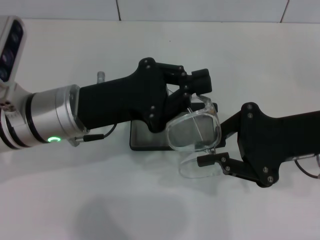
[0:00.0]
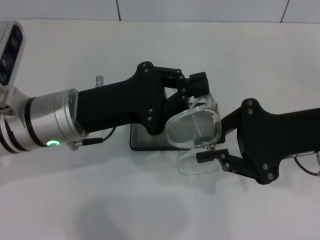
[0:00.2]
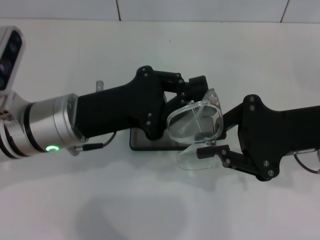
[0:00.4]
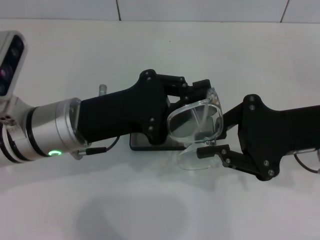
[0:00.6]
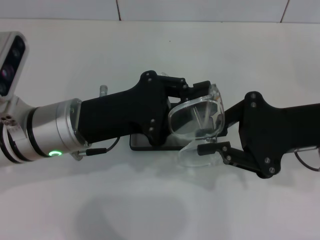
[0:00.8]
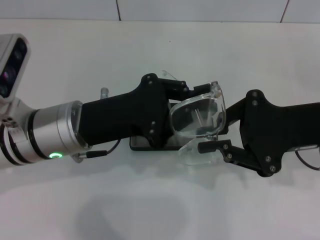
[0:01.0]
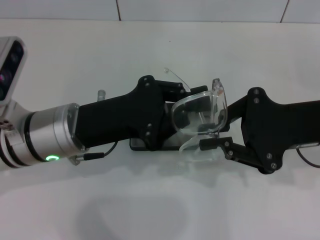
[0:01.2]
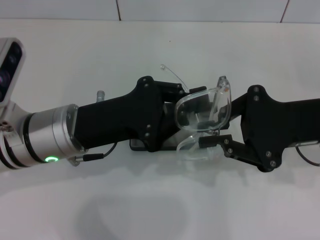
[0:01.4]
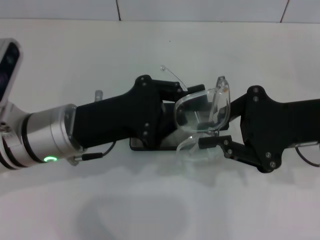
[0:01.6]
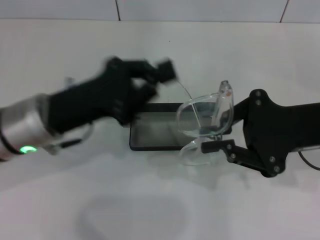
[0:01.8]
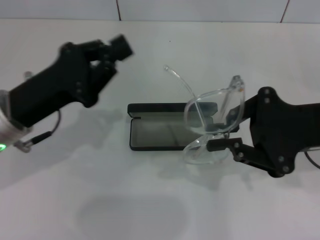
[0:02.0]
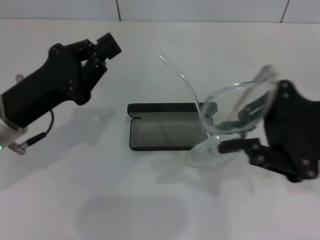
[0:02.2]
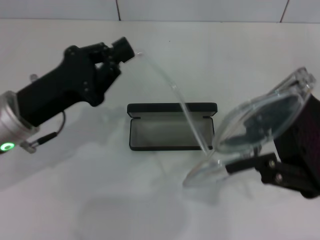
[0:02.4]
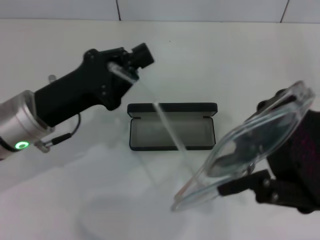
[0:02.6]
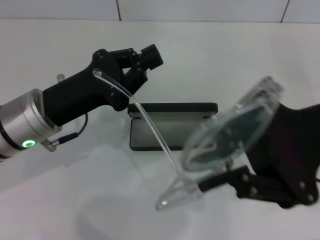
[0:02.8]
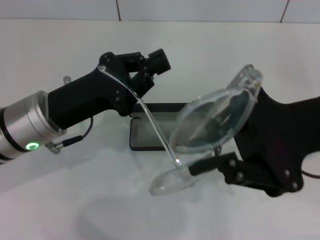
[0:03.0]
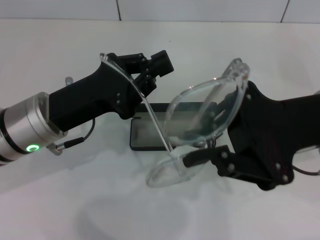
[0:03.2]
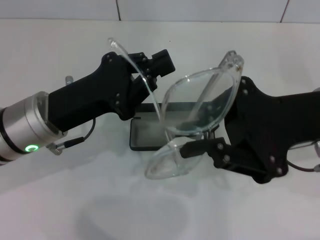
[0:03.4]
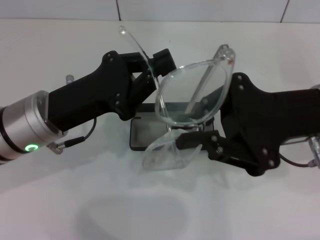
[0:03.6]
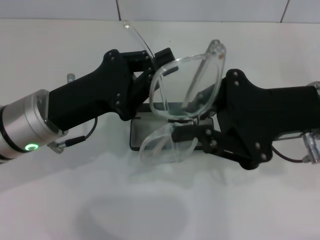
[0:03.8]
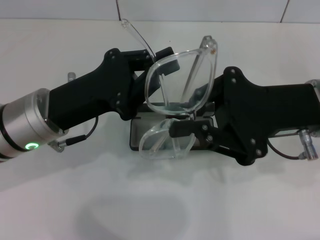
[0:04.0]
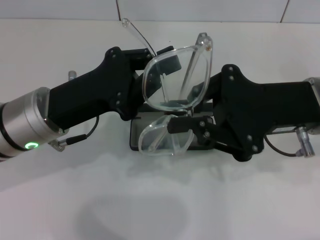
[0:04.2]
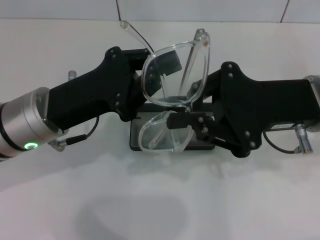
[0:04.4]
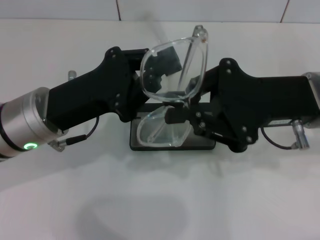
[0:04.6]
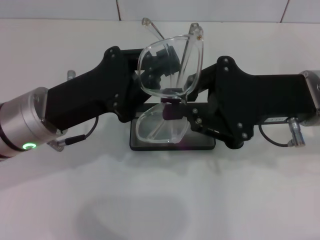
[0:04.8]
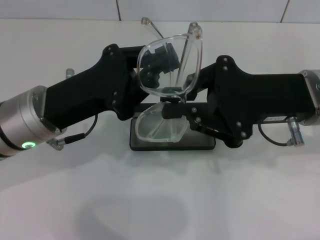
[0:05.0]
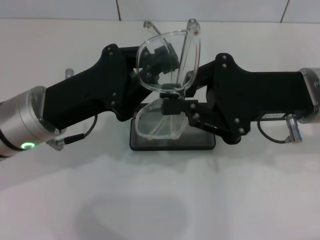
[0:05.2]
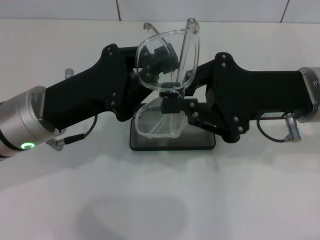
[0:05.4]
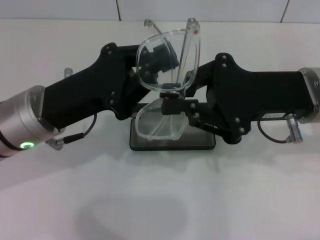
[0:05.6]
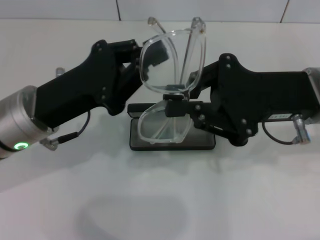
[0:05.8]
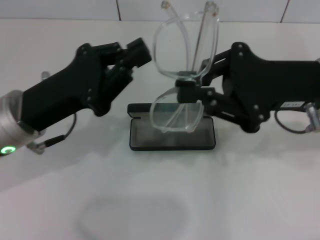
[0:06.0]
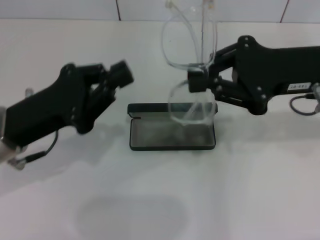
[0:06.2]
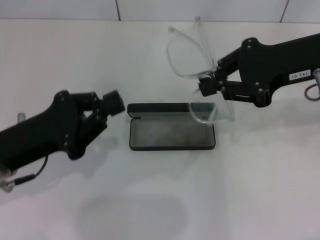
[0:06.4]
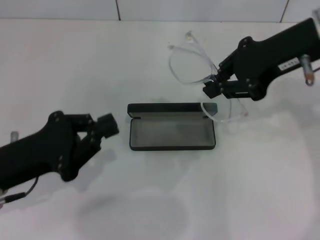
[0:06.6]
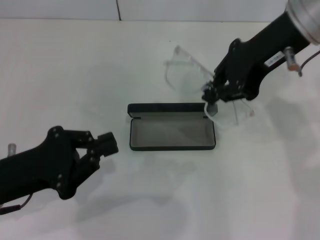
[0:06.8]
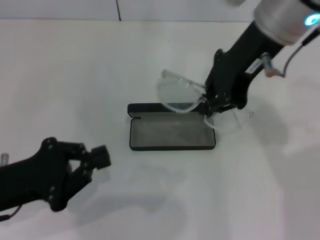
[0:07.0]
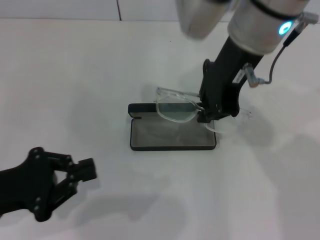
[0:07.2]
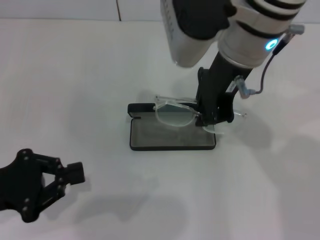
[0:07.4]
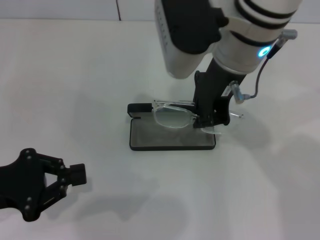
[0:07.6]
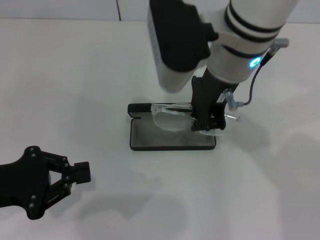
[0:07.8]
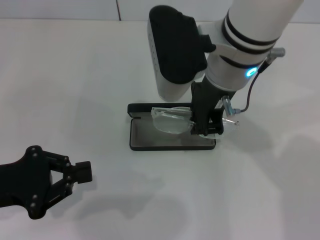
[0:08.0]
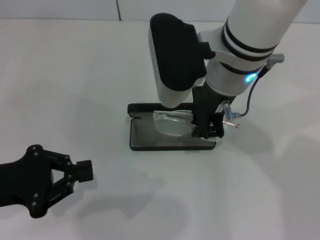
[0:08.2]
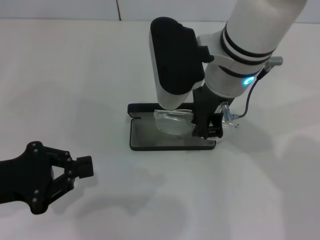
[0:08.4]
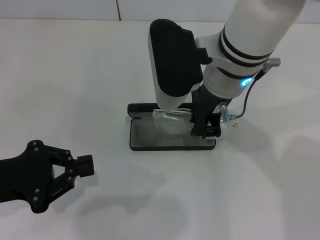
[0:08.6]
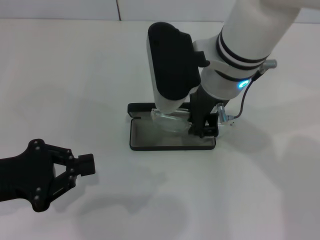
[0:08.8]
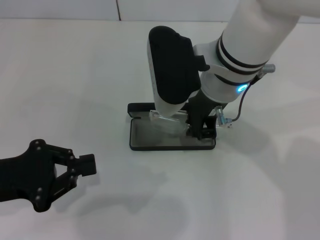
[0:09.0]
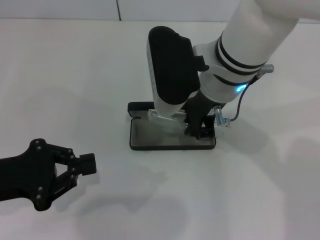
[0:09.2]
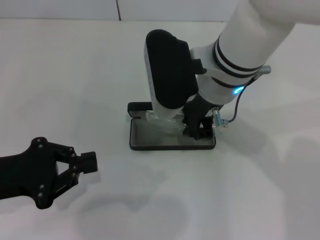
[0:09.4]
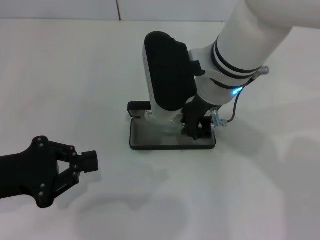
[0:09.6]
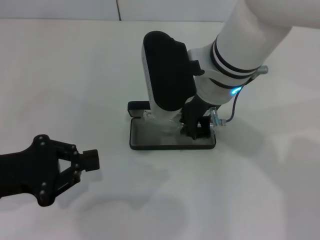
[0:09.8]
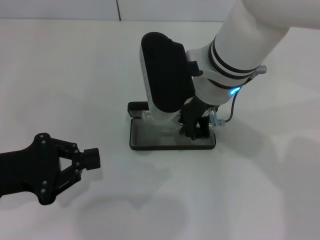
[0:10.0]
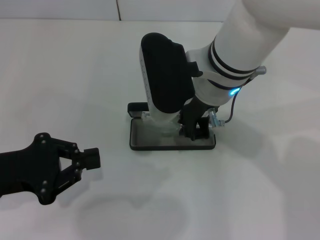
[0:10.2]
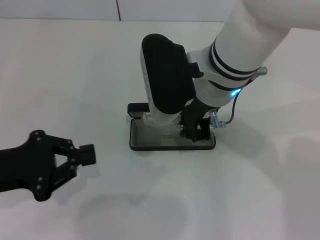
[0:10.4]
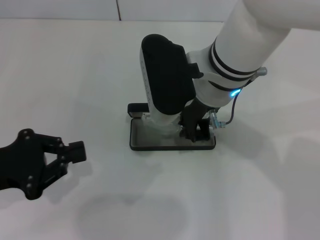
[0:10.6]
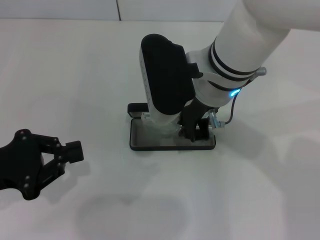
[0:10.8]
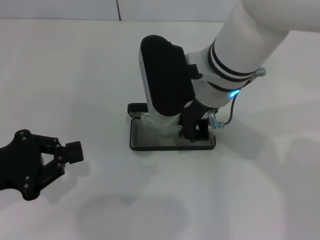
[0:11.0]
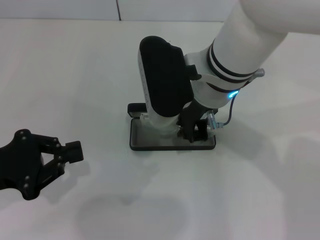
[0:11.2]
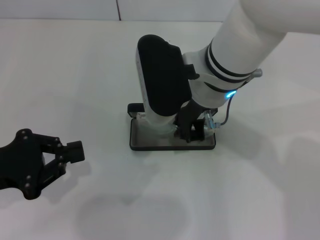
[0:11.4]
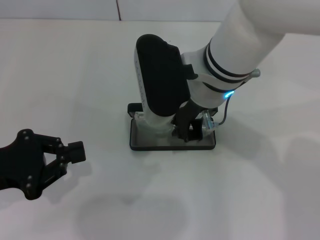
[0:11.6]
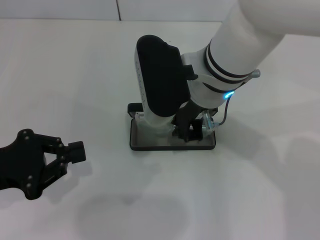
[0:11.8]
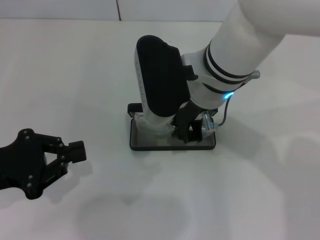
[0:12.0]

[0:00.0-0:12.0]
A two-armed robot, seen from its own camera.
Step, 0:00.0 to 0:05.4: Fold the frame with your left hand.
0:06.0 to 0:07.6: The right gripper heads to the left and upward, covering approximately 15 cm; the left gripper is displaced to the left and backward by roughly 10 cm.
0:07.6 to 0:09.0: The right gripper goes roughly 5 cm downward.
0:09.0 to 0:10.4: Neither gripper changes place.
0:10.4 to 0:12.0: The grippers move only a little.

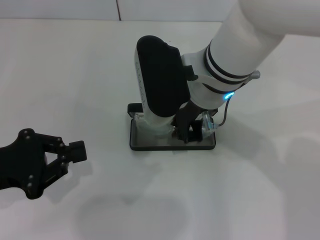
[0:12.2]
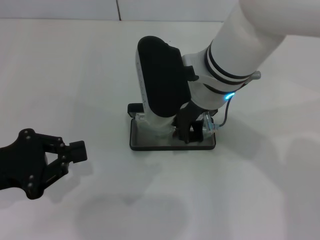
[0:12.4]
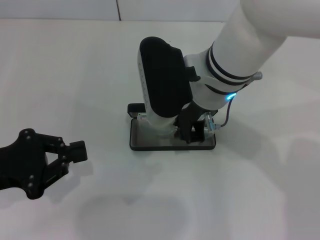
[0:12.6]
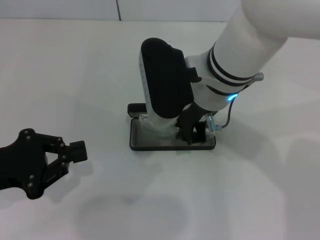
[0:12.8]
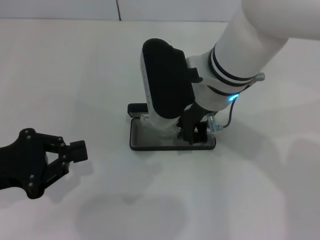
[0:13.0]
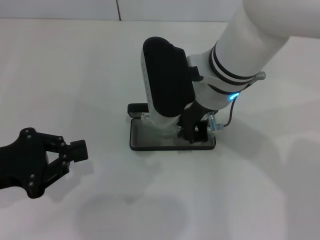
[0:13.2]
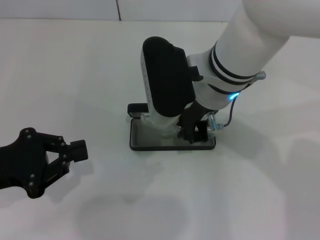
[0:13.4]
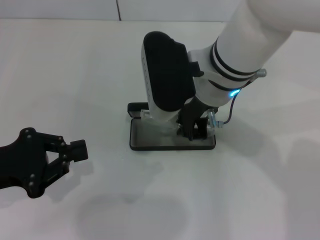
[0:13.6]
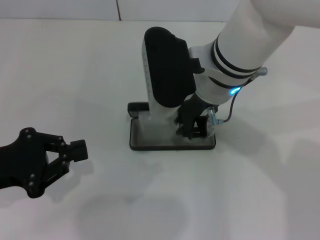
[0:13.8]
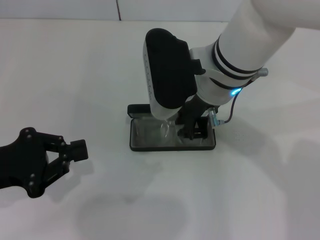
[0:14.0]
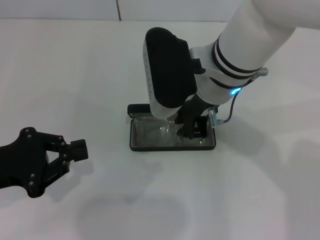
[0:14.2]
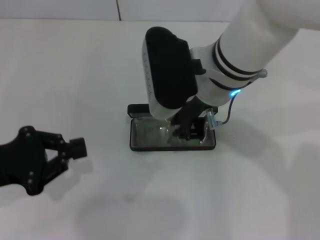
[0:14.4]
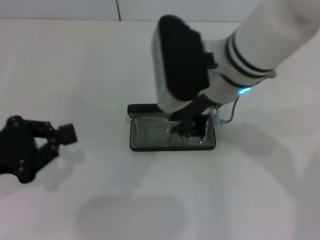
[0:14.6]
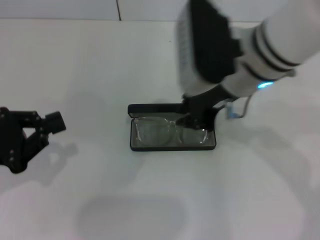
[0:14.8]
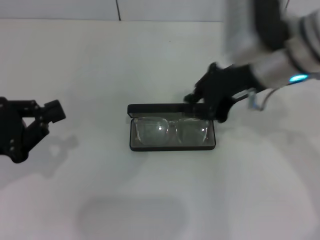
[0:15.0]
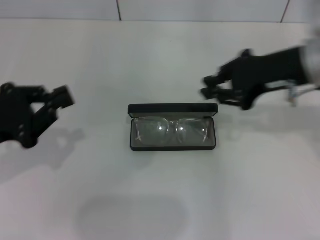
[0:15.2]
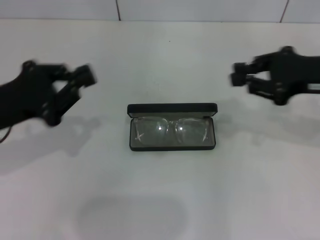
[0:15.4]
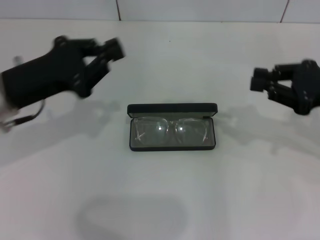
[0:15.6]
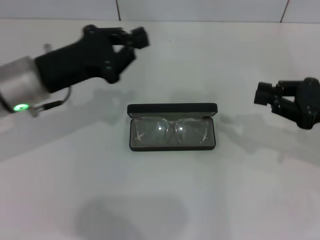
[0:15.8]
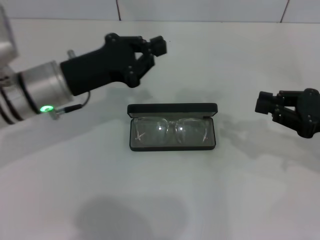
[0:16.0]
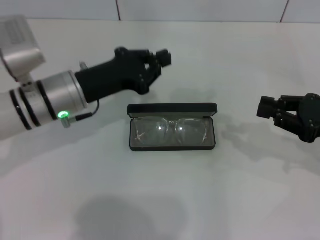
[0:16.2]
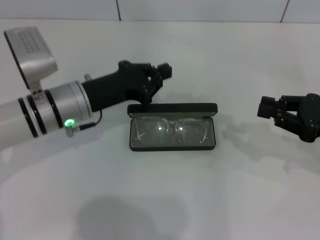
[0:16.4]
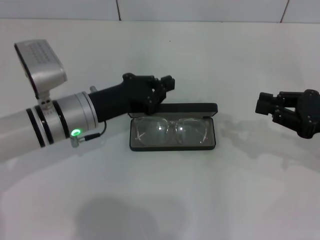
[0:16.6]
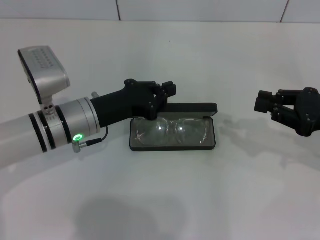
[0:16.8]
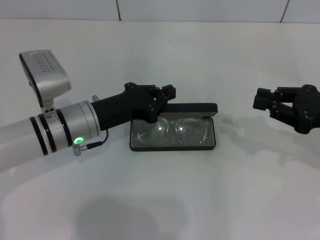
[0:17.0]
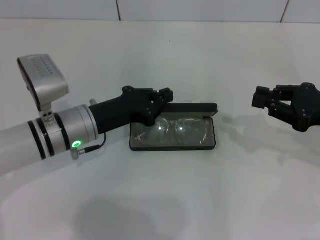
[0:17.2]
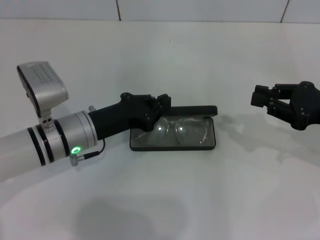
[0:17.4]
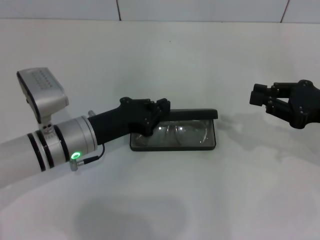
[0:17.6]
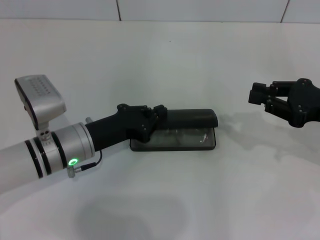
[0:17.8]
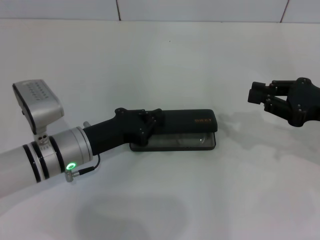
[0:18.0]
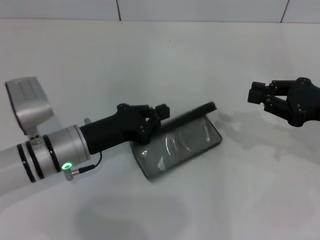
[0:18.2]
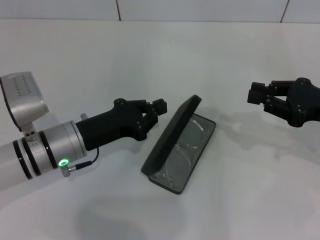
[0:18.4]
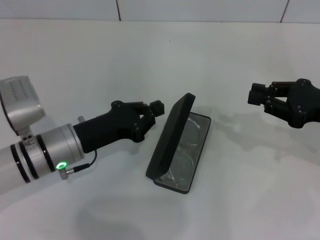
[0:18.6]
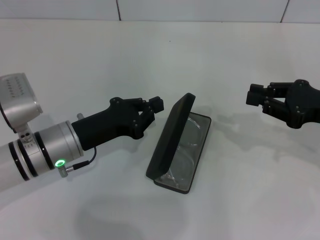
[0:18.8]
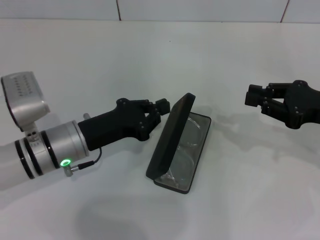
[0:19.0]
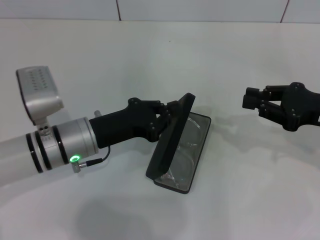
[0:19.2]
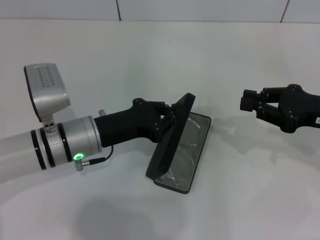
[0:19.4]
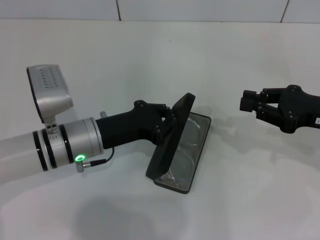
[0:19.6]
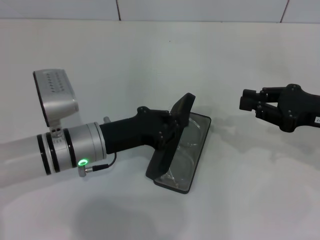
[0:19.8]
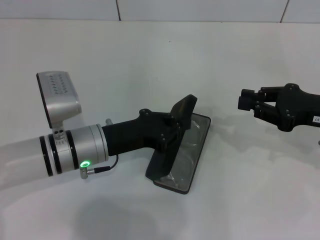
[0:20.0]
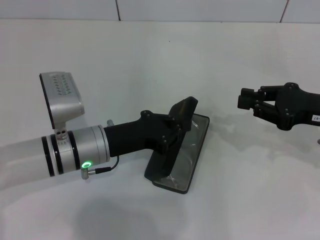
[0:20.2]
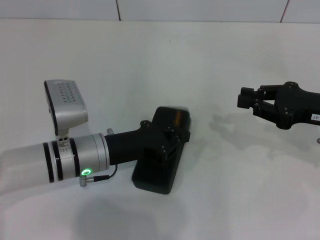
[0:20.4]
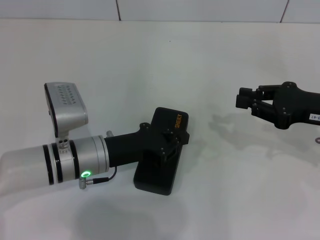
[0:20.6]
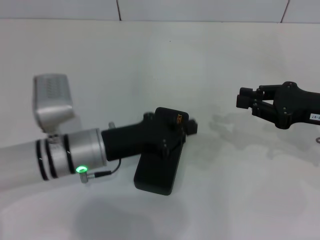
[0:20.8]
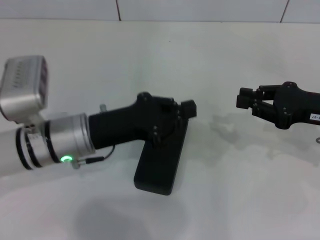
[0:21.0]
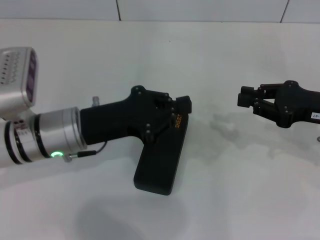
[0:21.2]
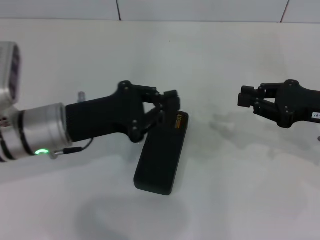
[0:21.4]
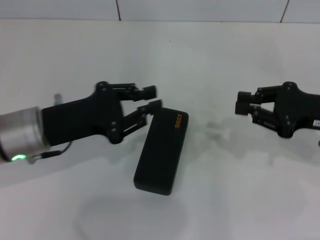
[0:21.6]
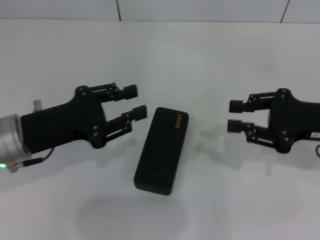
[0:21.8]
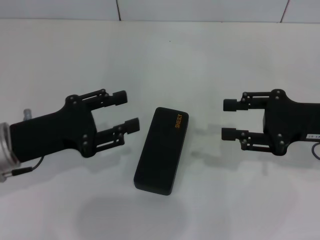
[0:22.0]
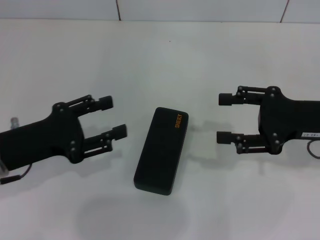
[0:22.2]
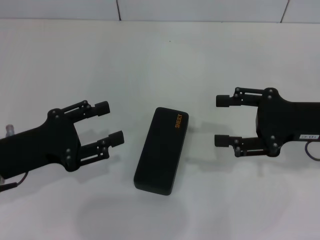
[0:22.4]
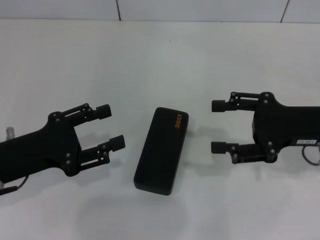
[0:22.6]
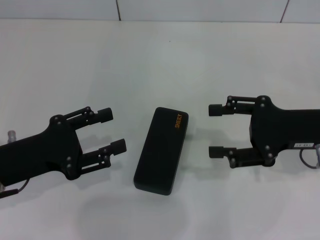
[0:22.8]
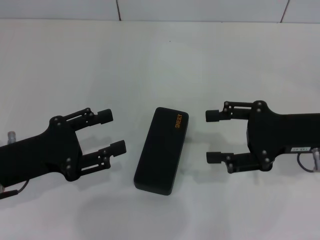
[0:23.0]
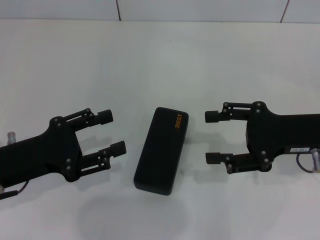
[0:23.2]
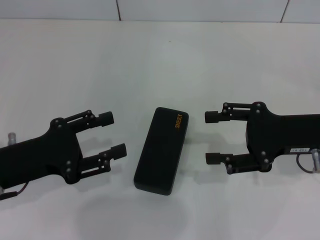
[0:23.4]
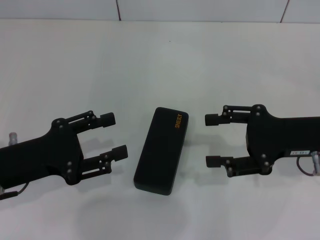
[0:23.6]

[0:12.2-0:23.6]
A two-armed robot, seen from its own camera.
Step, 0:14.2 to 0:20.4: Close the glasses case with your left hand.
0:12.2 to 0:13.6: Both grippers stay about where they are.
0:13.6 to 0:15.0: The right gripper moves to the right, about 10 cm.
0:15.0 to 0:16.4: The right gripper is displaced to the right and downward by roughly 20 cm, while the left gripper is displaced to the right and forward by approximately 20 cm.
0:16.4 to 0:17.8: The left gripper moves about 5 cm.
0:17.8 to 0:20.8: The grippers stay close to where they were, moving slightly.
0:20.8 to 0:22.2: The left gripper moves to the left and upward, some 10 cm, and opens. The right gripper opens its fingers.
0:22.2 to 0:23.6: The right gripper opens up.
